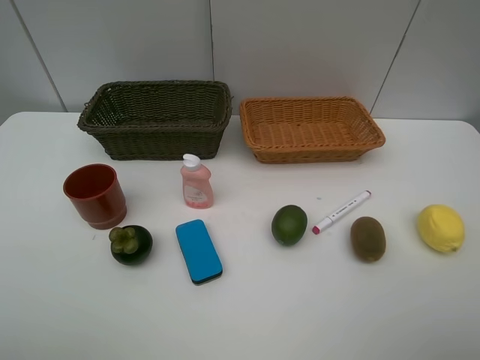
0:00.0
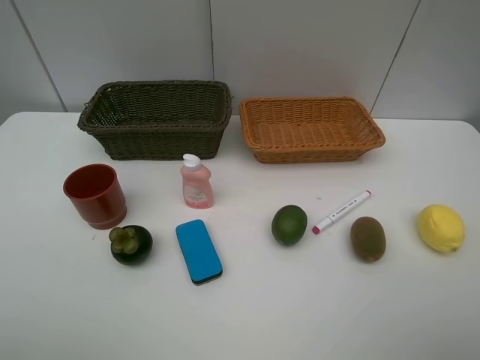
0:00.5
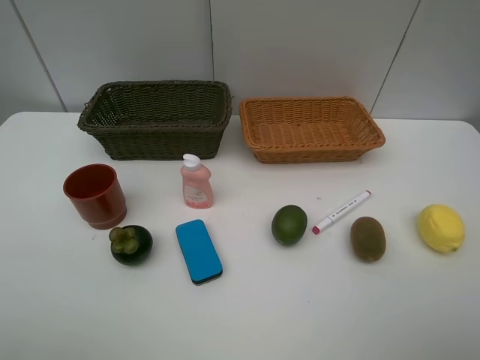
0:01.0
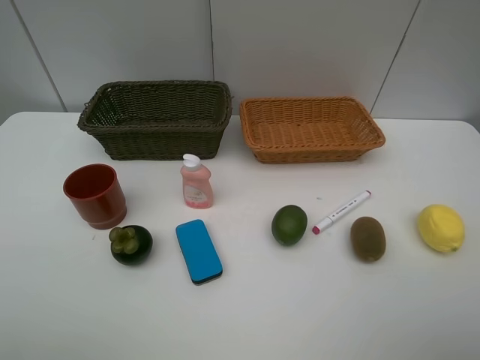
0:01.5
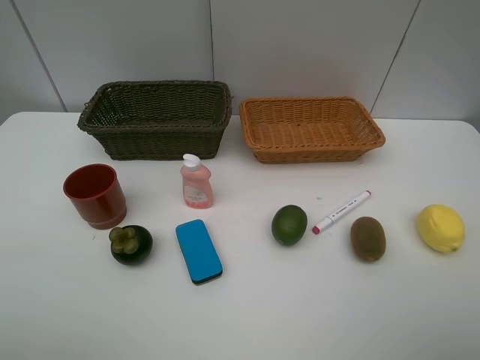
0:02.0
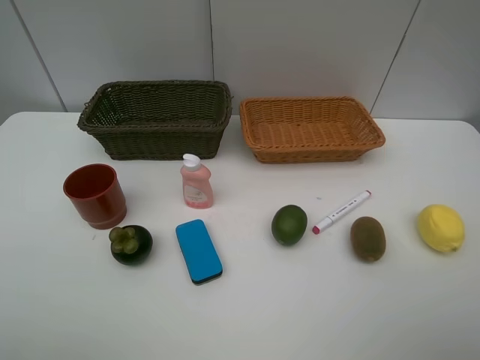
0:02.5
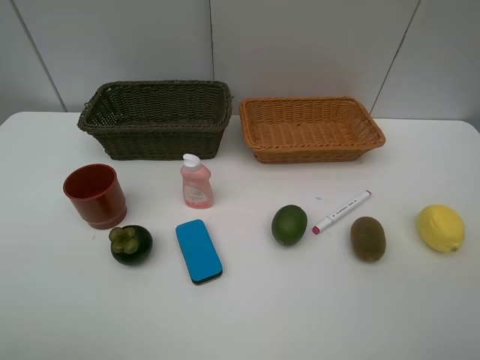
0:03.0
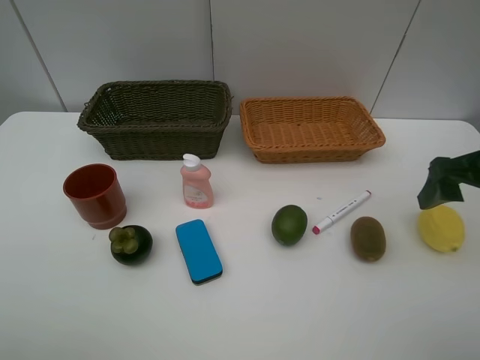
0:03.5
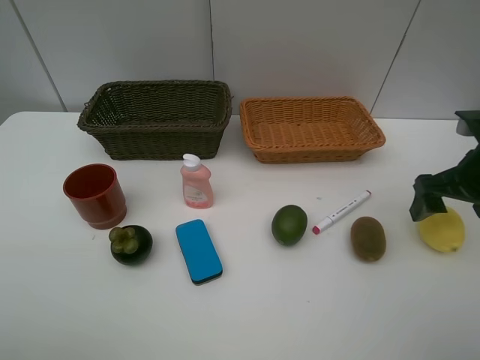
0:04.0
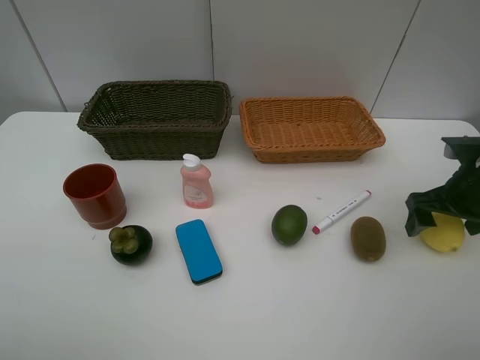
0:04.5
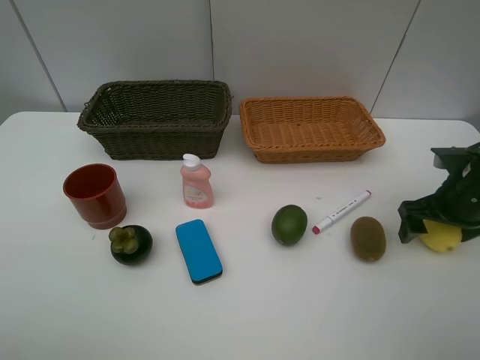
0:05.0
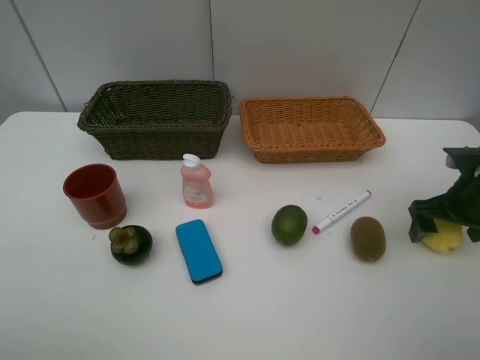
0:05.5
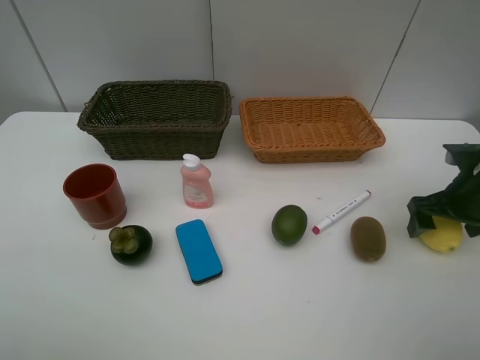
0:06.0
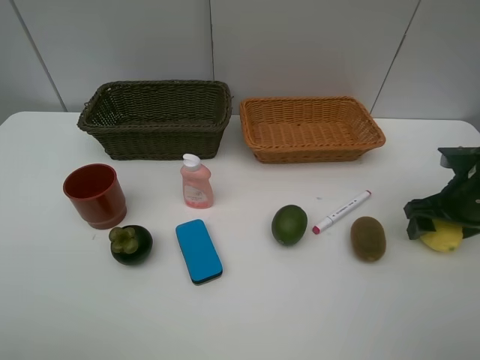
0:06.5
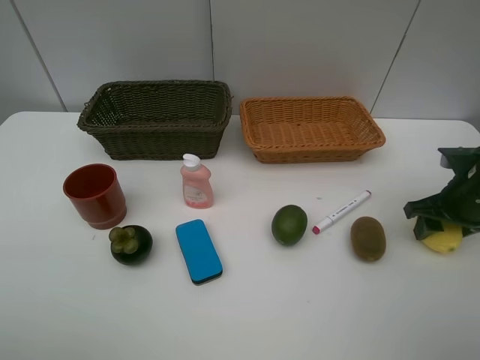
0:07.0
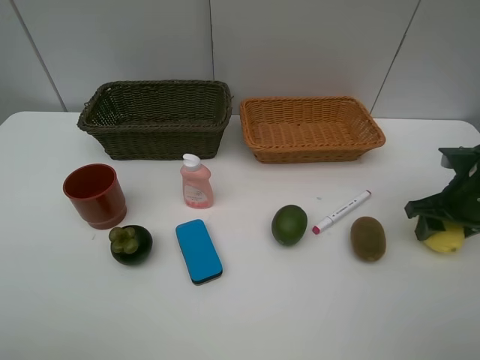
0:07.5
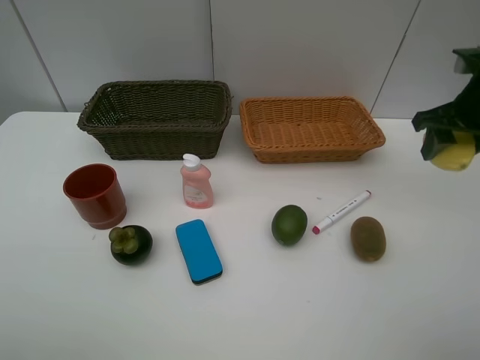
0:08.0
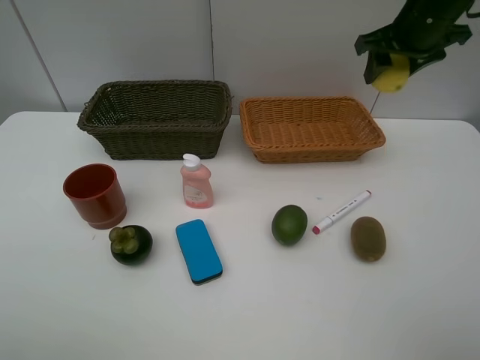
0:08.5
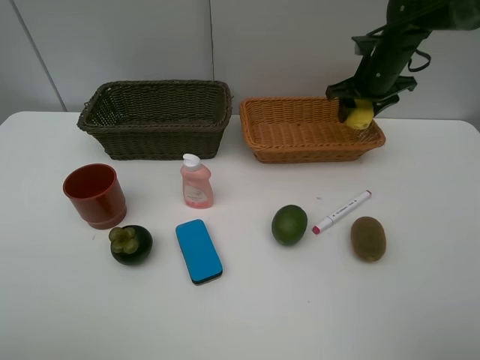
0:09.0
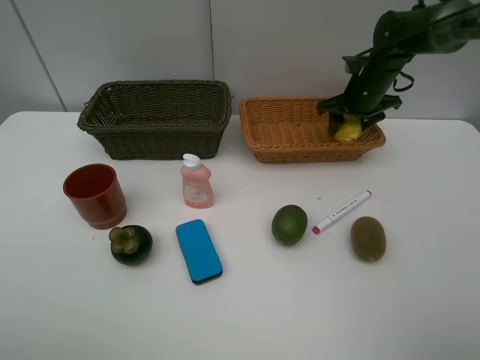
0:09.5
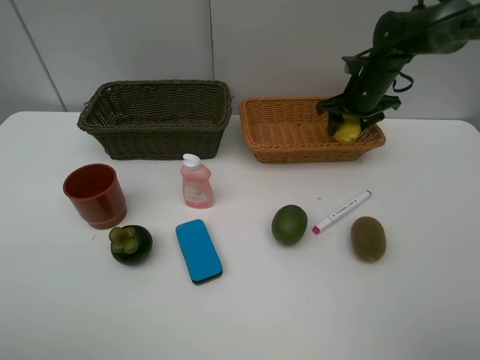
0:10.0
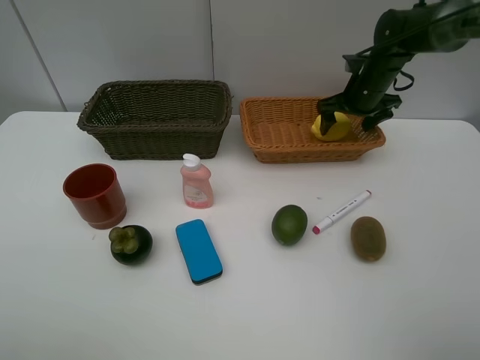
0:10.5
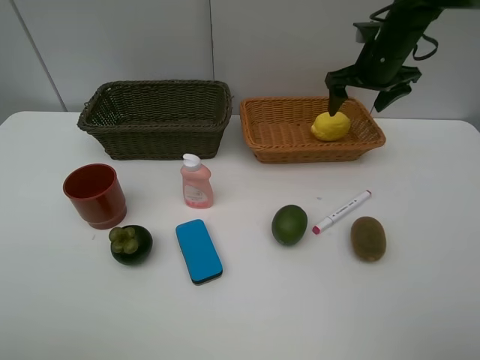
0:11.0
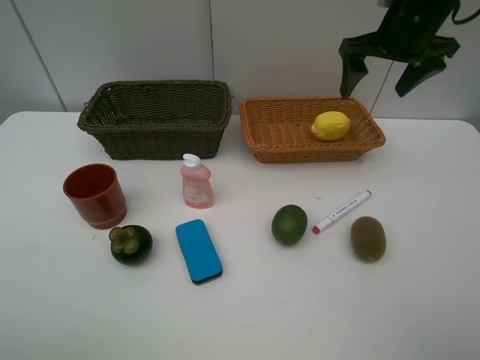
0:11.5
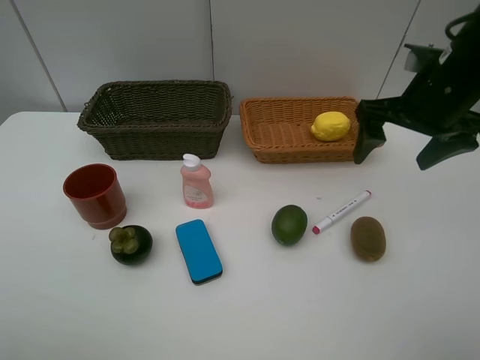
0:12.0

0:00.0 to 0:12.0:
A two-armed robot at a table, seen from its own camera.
Task of the whole recording: Place multiple objects separately in different baskets.
Step, 0:00.0 to 0:07.5: Pick up the lemon with right gripper.
Step, 0:08.0 to 0:10.5: Place the lemon in the light basket with right gripper.
0:00.0 to 0:02.0: Both grippers stay about where they are.
0:02.0 to 0:04.0: The right gripper heads forward, covering about 25 cm.
0:04.0 to 0:06.0: The right gripper is displaced downward by about 5 cm.
0:06.0 to 0:08.0: The right gripper goes roughly 15 cm upward and forward, and closes.
0:08.0 to 0:10.0: The right gripper is displaced forward, downward and to the left by about 20 cm.
0:10.0 to 0:12.0: The right gripper shifts about 20 cm backward and upward, and opens its fingers.

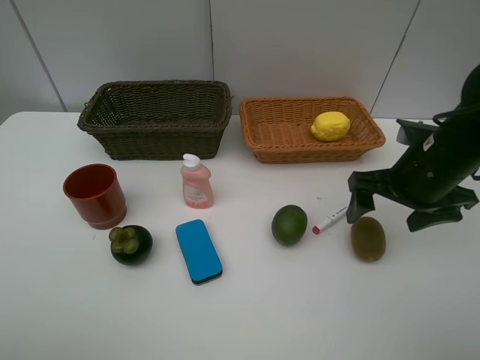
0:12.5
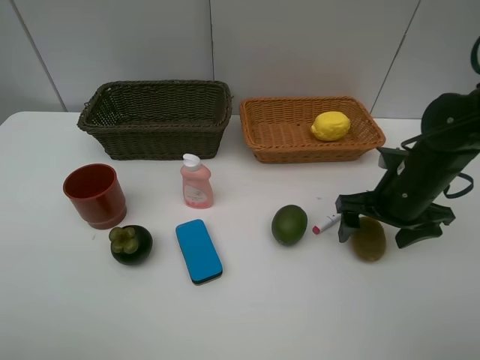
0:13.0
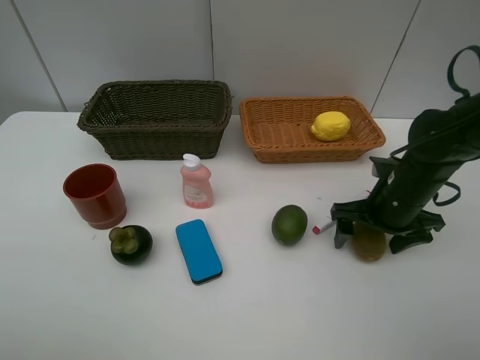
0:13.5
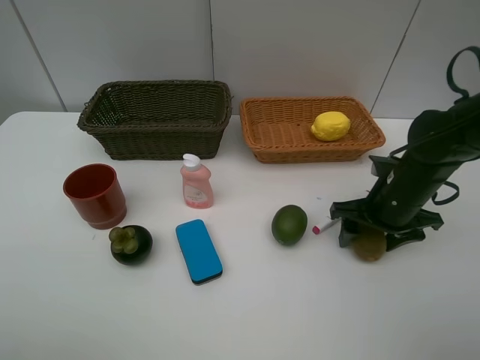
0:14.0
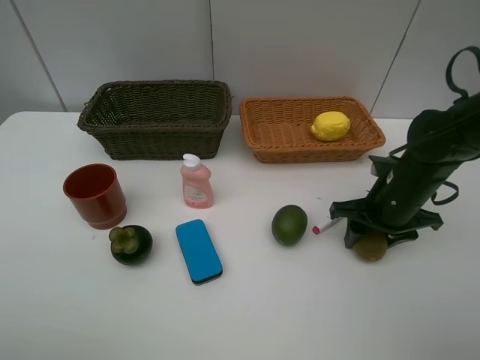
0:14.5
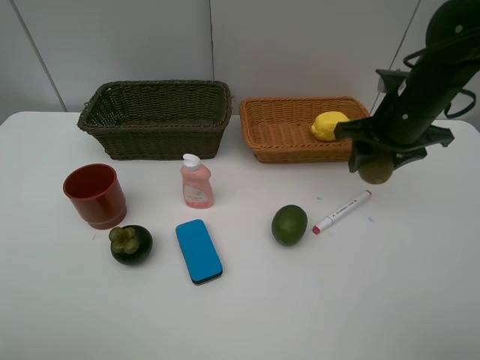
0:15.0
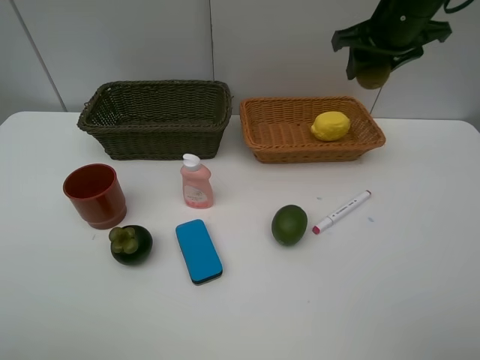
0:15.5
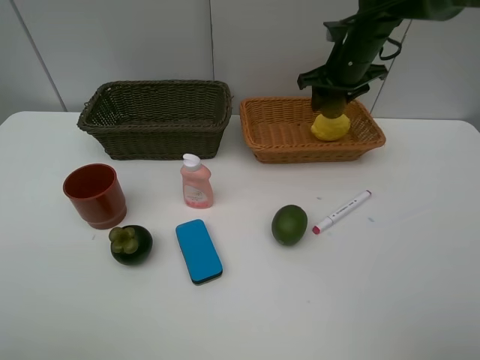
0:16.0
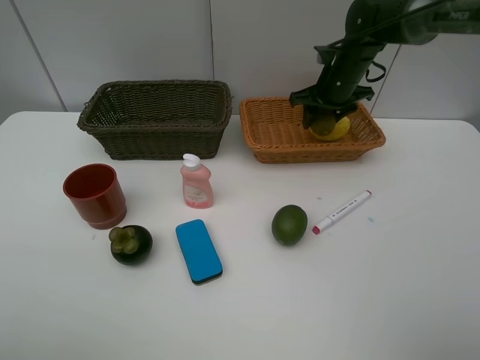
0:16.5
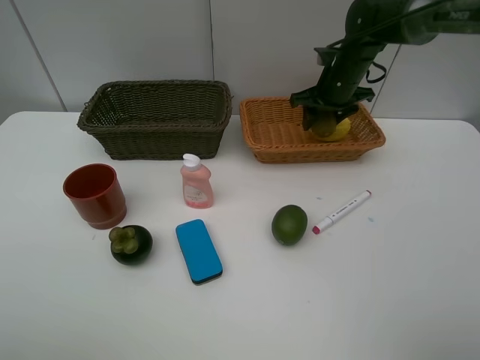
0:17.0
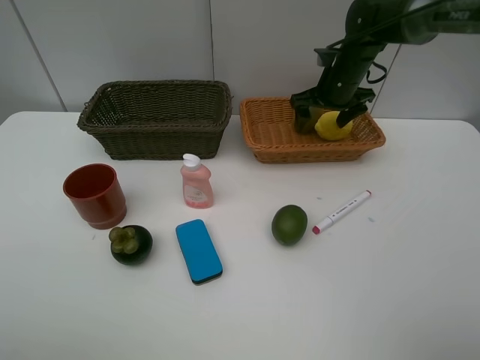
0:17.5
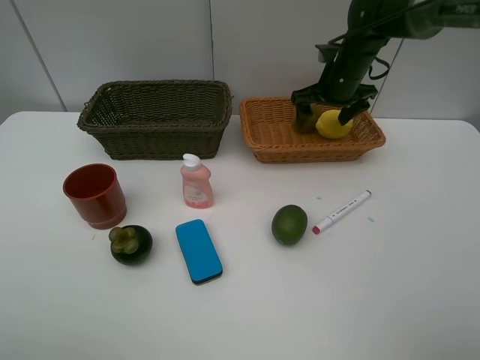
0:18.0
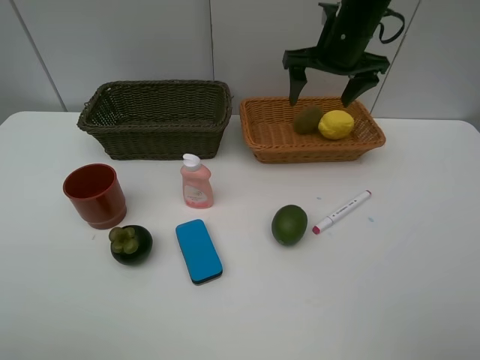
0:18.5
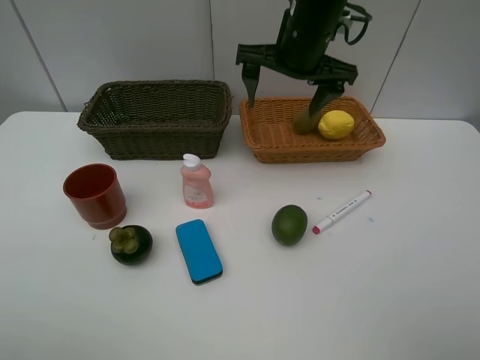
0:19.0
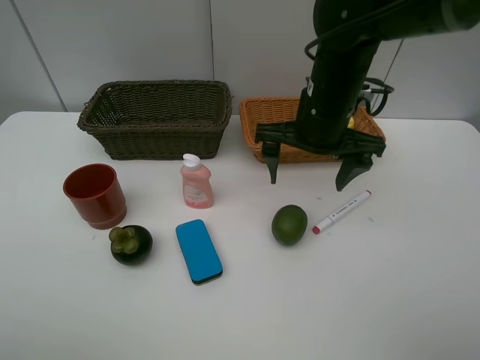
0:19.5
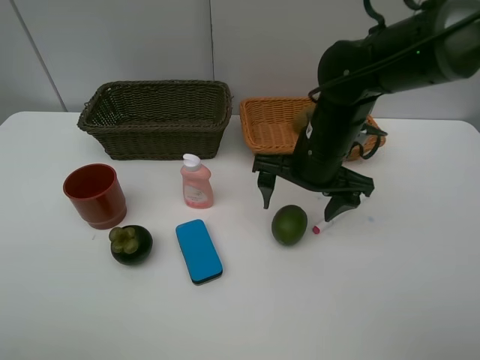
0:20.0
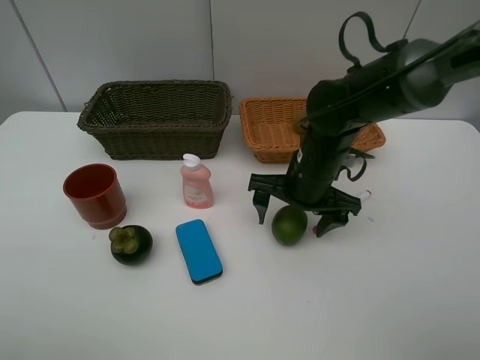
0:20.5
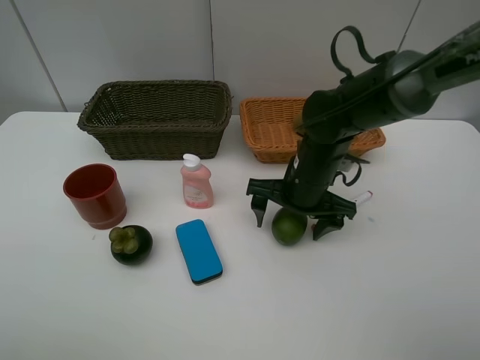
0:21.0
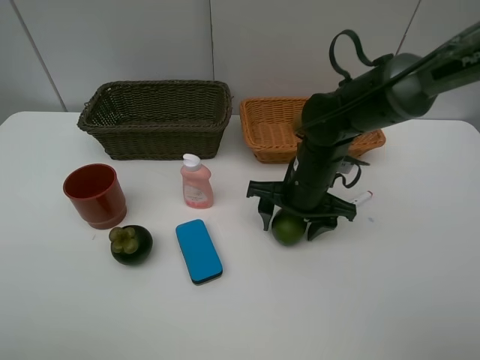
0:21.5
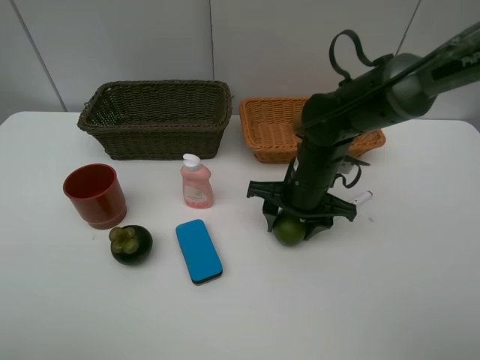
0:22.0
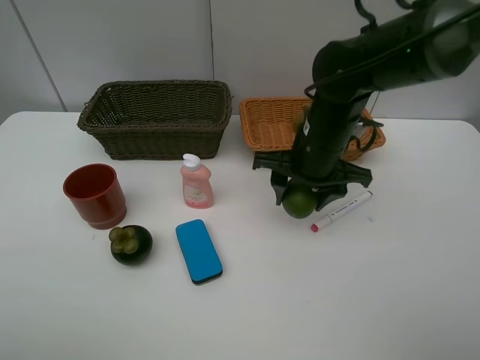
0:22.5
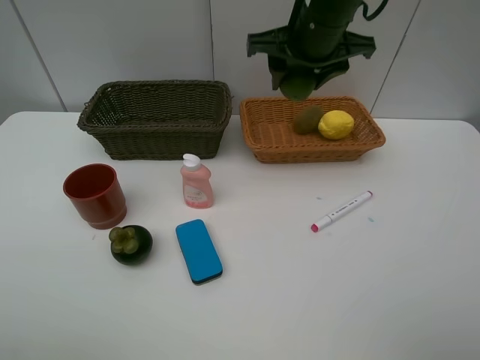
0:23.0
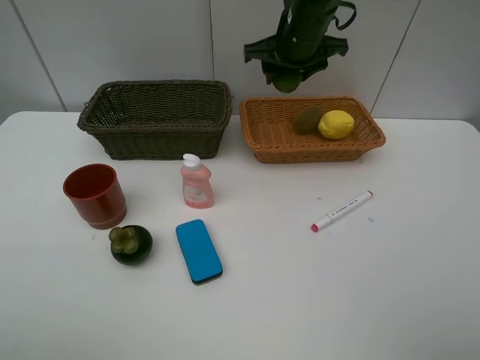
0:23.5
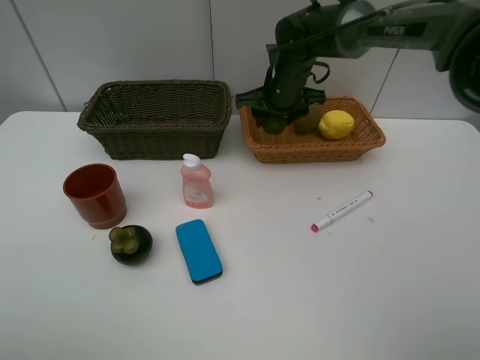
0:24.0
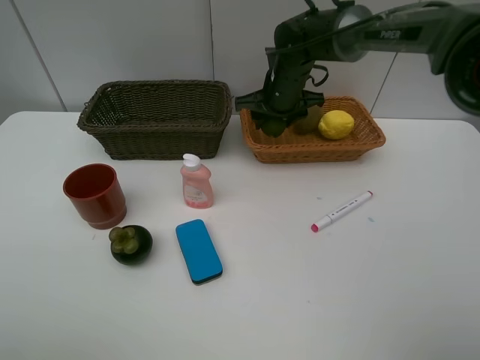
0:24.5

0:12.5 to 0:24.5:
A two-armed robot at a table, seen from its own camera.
Task of the whole recording: Place multiple objects separately in different baskets.
Step, 0:12.5 to 0:14.5: Pick up kiwi with right gripper.
Step, 0:15.0 to 0:18.0: Place the kiwi in the light basket with right gripper.
Step, 0:18.5 to 0:22.0: Pick up the lime with right gripper.
0:12.5 to 0:14.5: The right gripper is displaced downward by approximately 5 cm, and closes its fingers.
0:14.5 to 0:16.5: The right gripper goes about 20 cm forward.
0:16.5 to 0:18.5: The right gripper moves upward and backward, some 10 cm, and opens its fingers.
0:18.5 to 0:20.5: The right gripper is displaced downward and backward by approximately 20 cm.
0:20.5 to 0:22.5: The right gripper shifts roughly 5 cm upward, and closes.
0:22.5 to 0:24.5: The right gripper is displaced forward by approximately 15 cm.

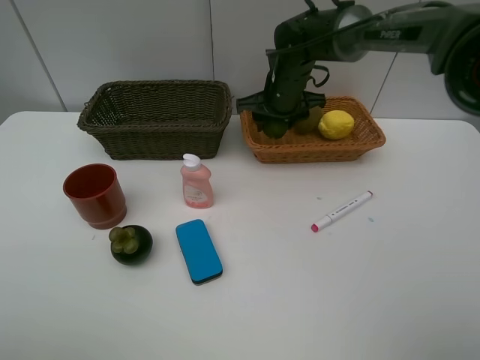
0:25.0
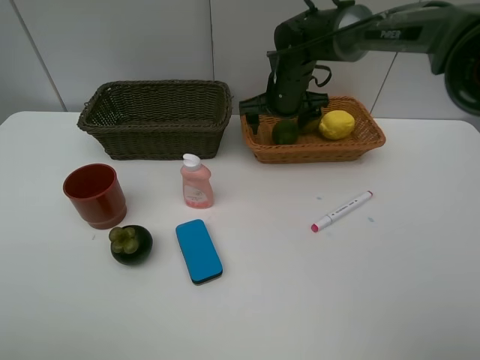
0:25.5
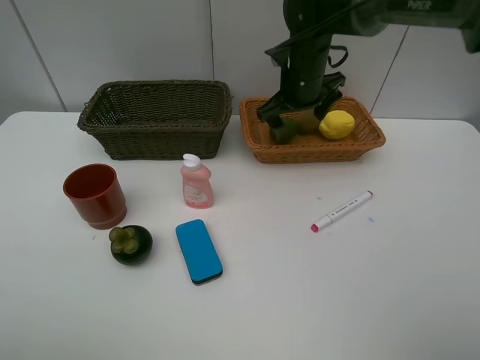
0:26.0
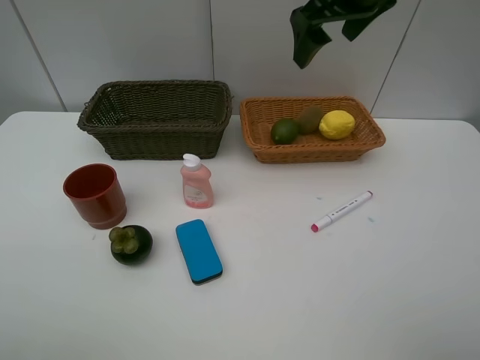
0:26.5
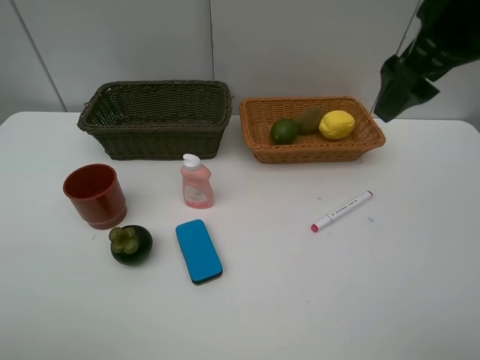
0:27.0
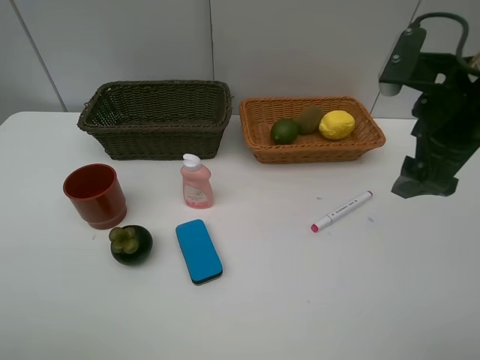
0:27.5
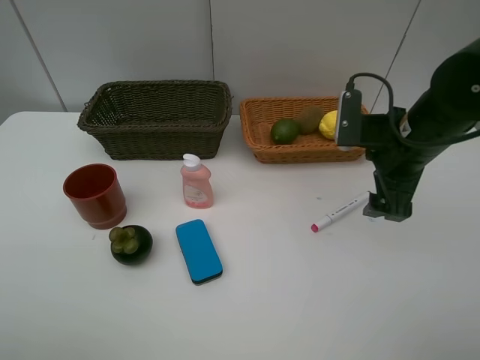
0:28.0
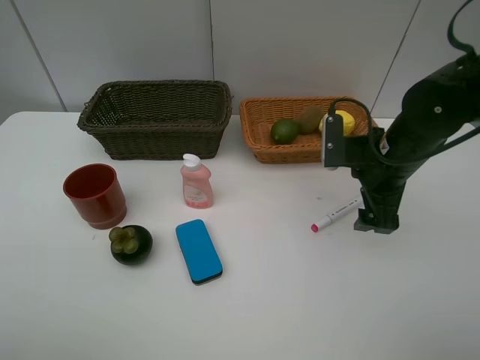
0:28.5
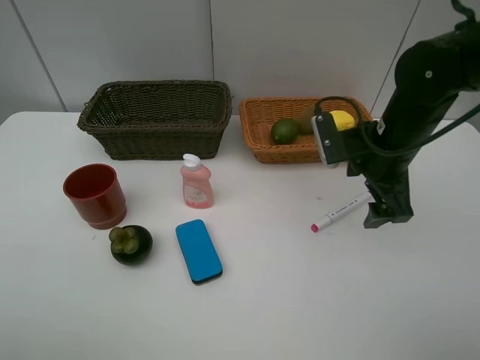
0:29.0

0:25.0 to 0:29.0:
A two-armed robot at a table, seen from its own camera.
Task of the whole recording: Place multiple objects separately in different baskets.
0:25.0 to 0:27.0: The right gripper is displaced backward, upward and to the right by approximately 30 cm, and opens up.
0:27.0 to 0:29.0: The right gripper goes approximately 15 cm downward.
